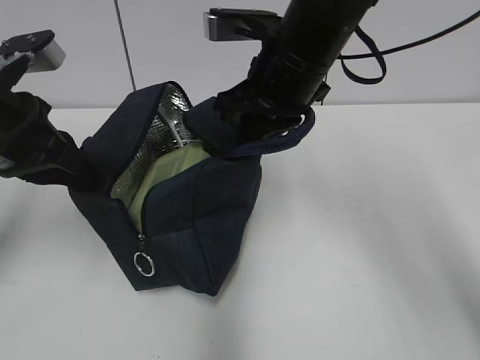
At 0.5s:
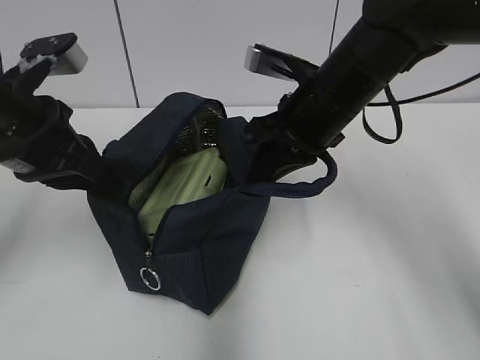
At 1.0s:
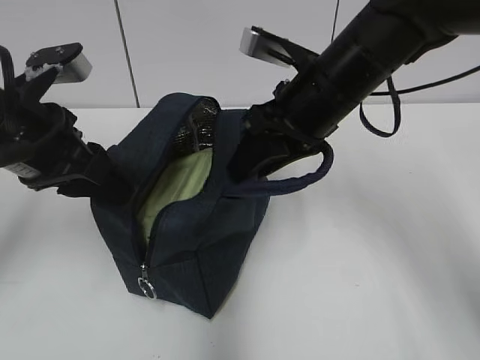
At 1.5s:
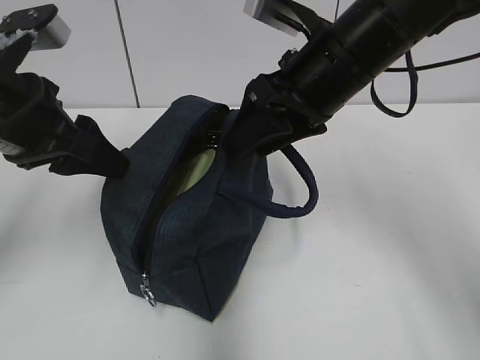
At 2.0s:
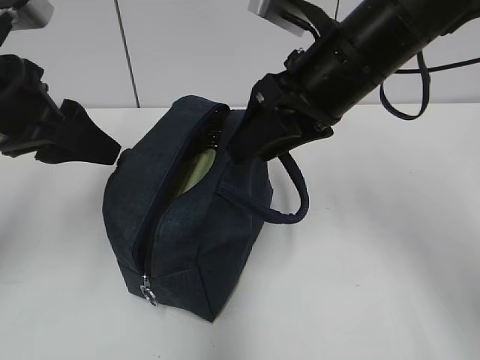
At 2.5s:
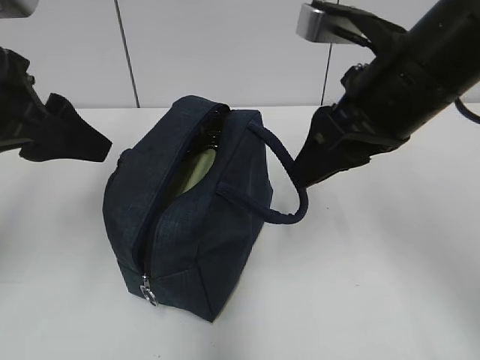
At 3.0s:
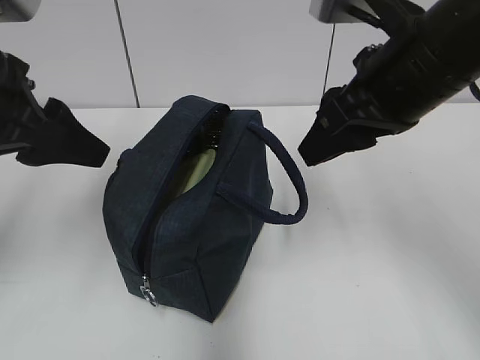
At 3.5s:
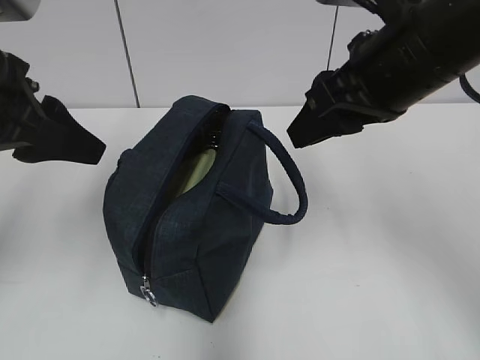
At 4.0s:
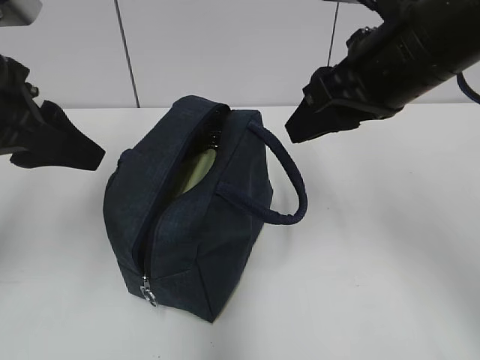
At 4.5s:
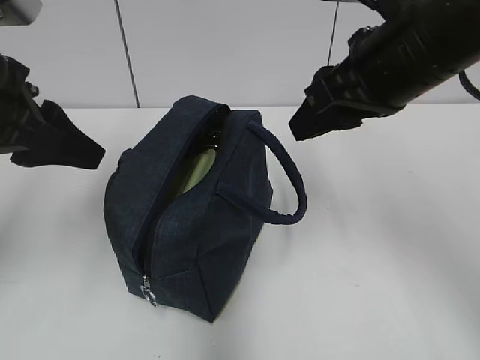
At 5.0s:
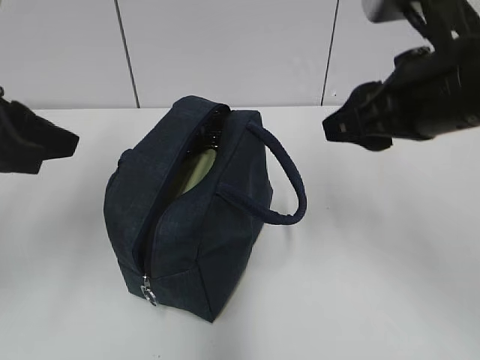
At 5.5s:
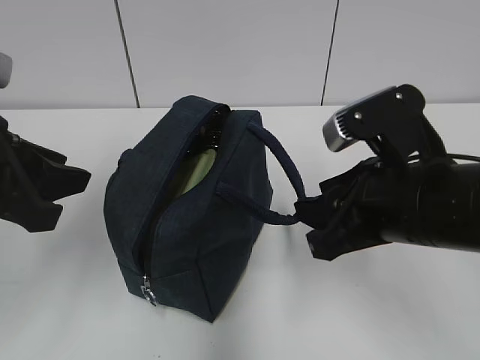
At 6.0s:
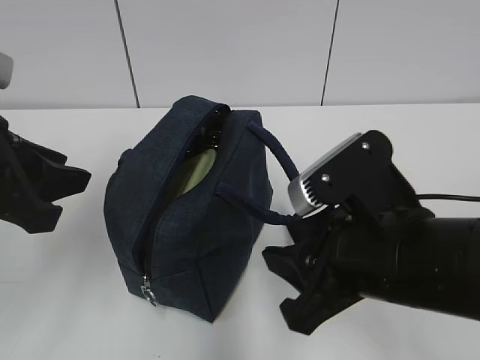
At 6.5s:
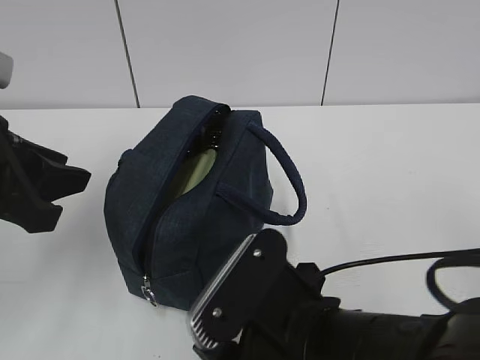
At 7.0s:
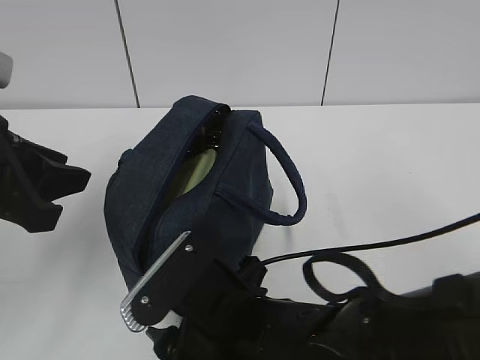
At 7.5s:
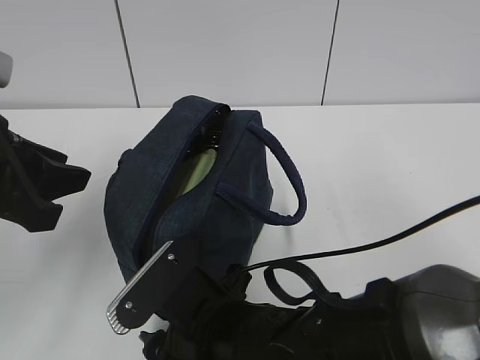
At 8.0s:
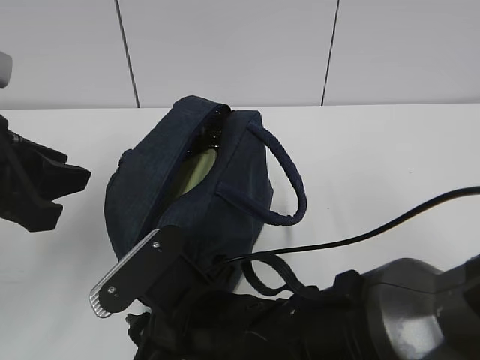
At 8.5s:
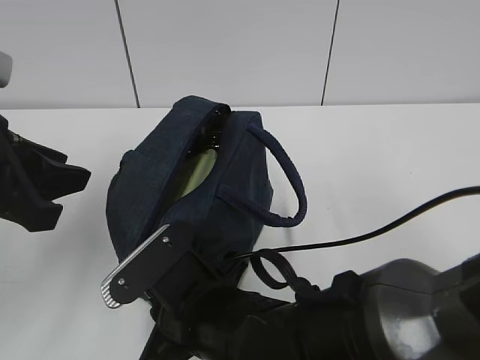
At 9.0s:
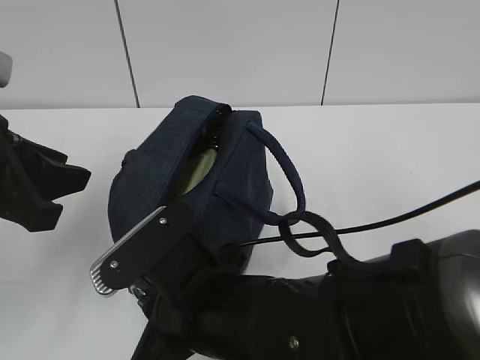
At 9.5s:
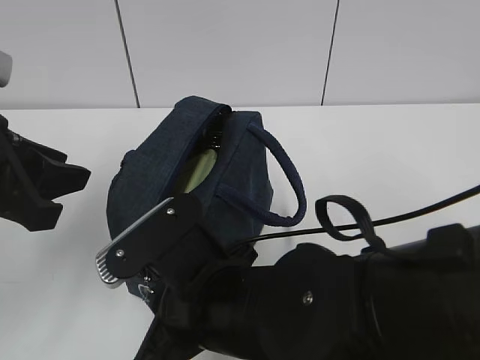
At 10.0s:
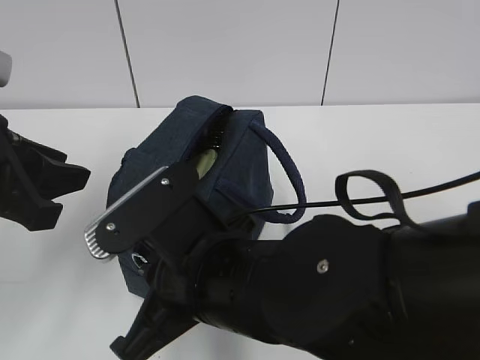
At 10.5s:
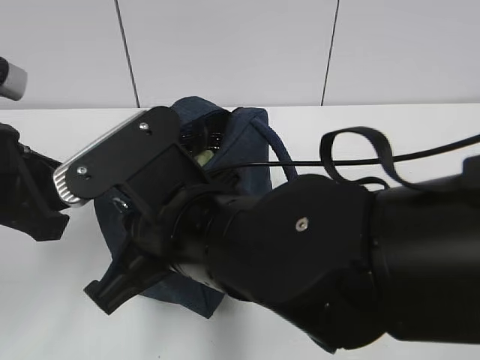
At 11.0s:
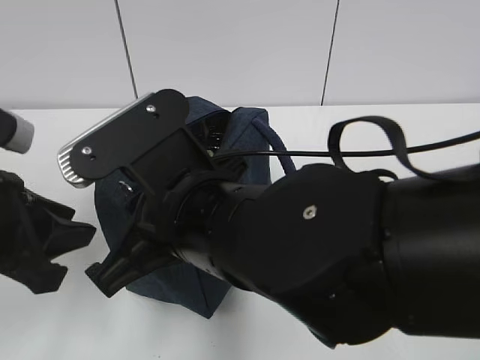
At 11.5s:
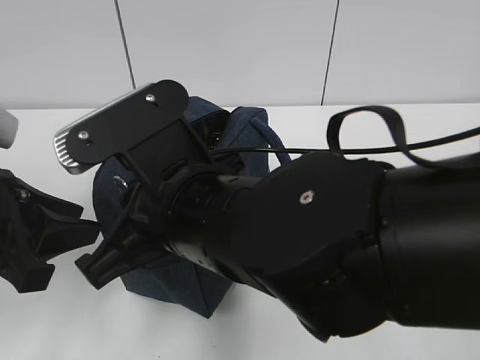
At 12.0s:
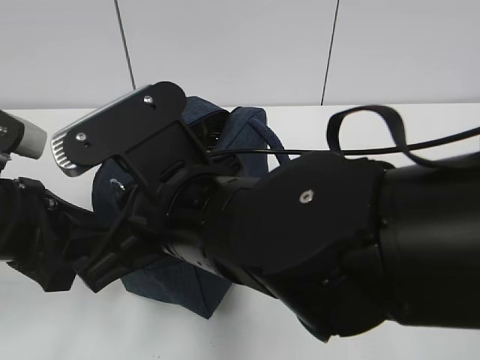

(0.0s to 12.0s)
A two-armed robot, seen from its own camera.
0.0s - 2.0s: The left gripper opens its fingers; the right gripper opens its fingers.
2.0s - 4.0s: The right gripper changes place by approximately 5 cm.
4.0s - 6.0s: The left gripper shifts by roughly 5 cm. Meanwhile the right gripper moves downward and backward, about 15 cm.
6.0s - 8.0s: The right gripper heads to the left and downward, covering approximately 15 cm.
8.0s - 10.0s: The right gripper shifts about 5 cm upward, and closes.
10.0s - 12.0s: The left gripper shifts about 5 cm downward.

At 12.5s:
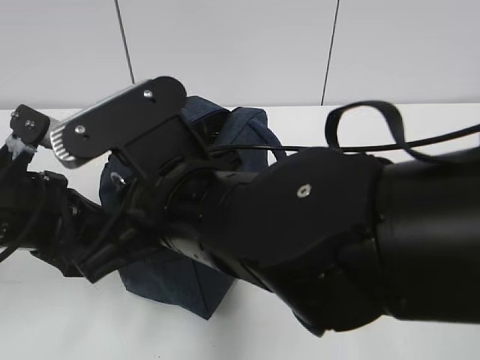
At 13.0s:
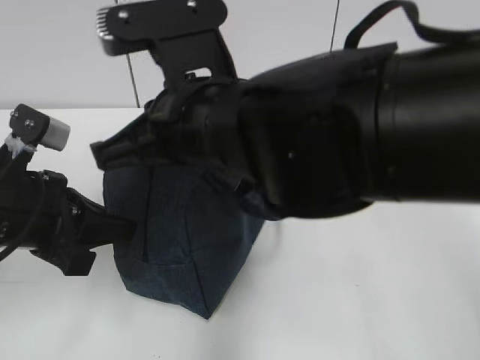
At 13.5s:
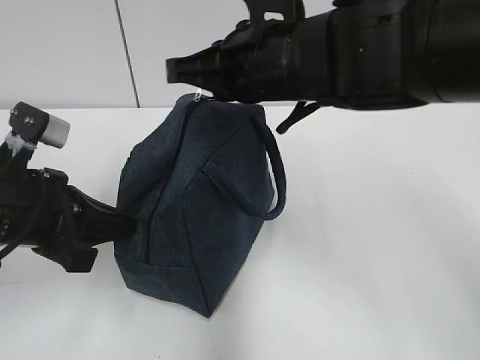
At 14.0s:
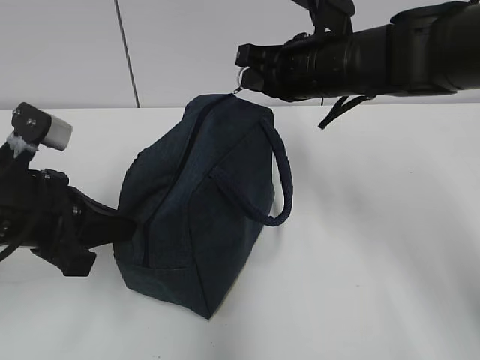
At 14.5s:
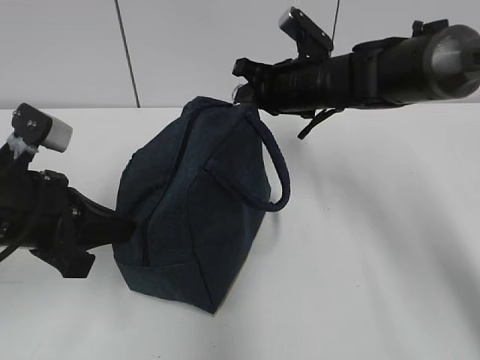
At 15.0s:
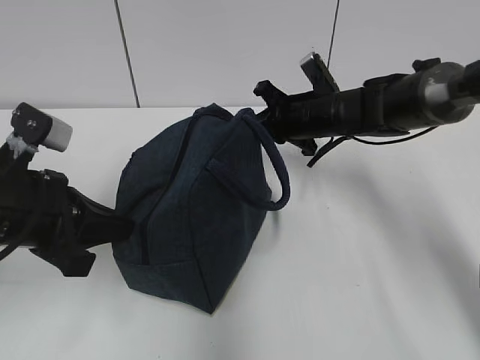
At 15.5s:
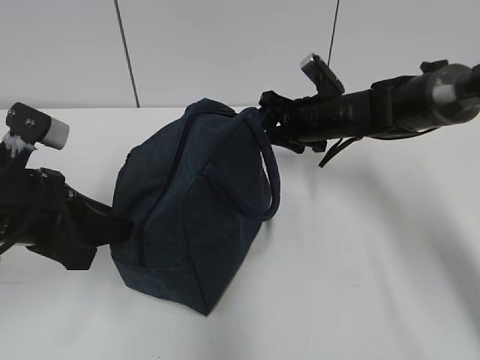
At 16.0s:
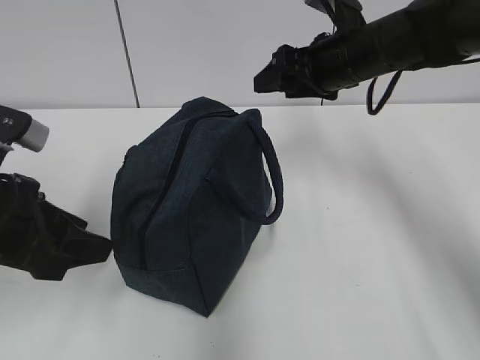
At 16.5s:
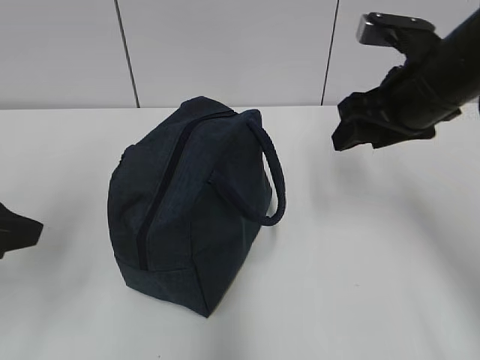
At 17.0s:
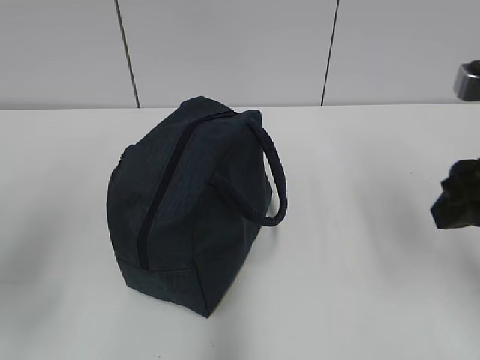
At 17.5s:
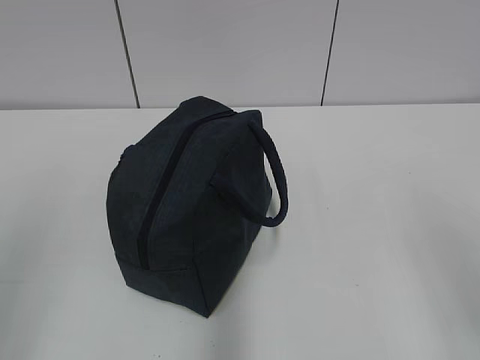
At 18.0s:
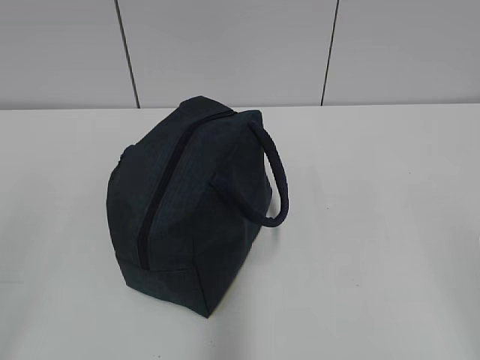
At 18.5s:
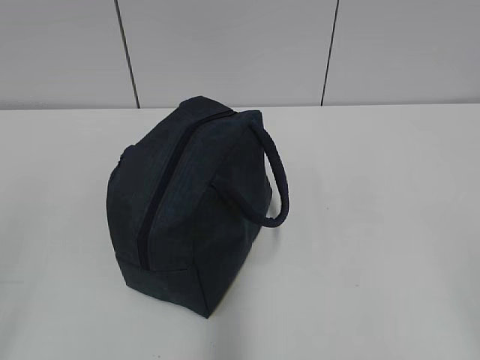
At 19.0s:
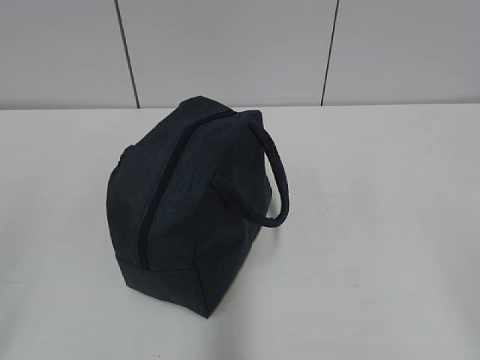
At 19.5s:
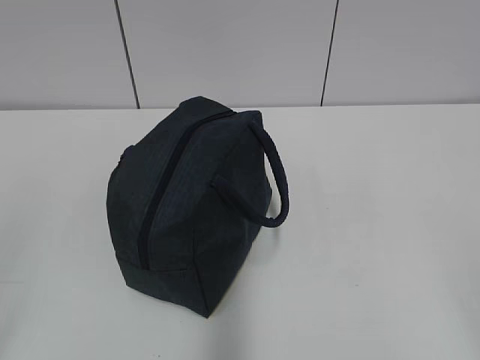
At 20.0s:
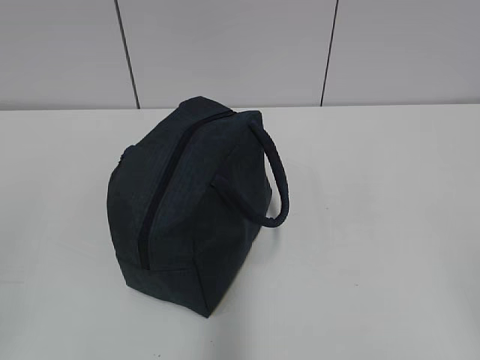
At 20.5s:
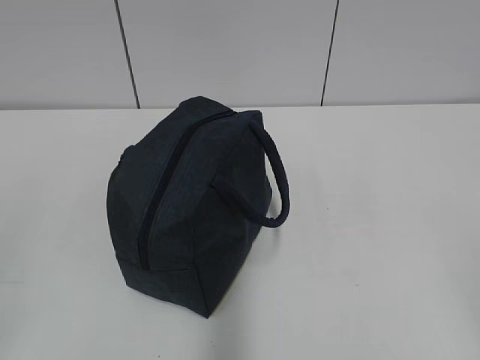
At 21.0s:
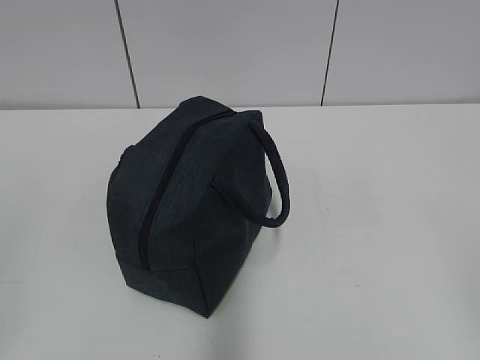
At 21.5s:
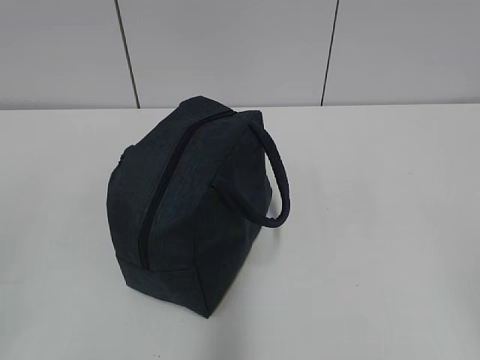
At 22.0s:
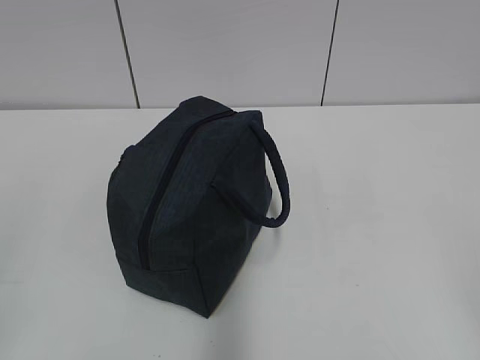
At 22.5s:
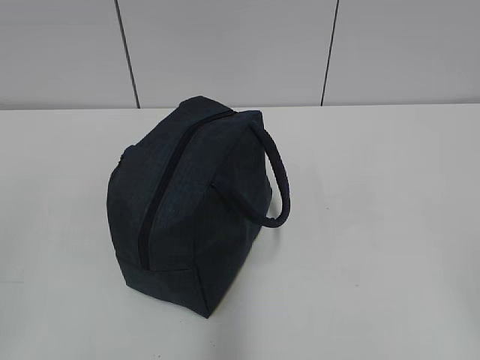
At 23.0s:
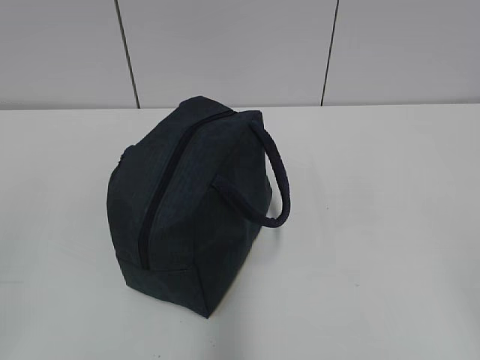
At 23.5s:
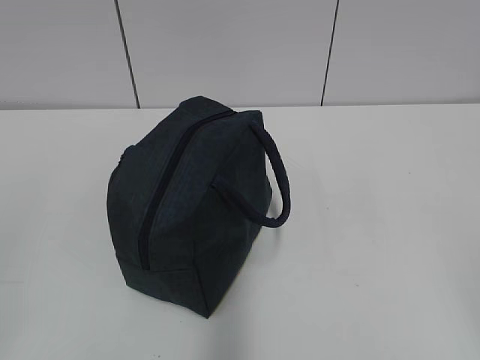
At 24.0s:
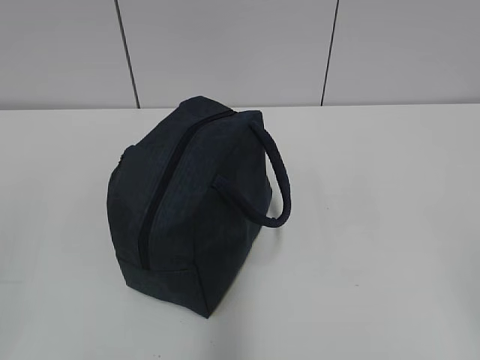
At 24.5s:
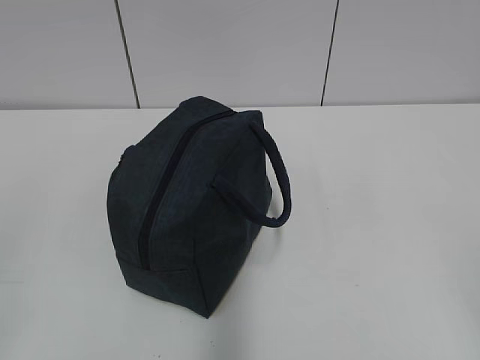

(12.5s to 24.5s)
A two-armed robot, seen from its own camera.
12.5s - 14.5s: The right gripper is displaced forward and to the right by roughly 30 cm.
14.5s - 16.5s: The left gripper goes about 10 cm upward and backward, and opens up; the right gripper heads backward, to the right and upward, covering approximately 15 cm, and opens its fingers.
16.5s - 18.5s: The left gripper shifts approximately 15 cm backward. The right gripper shifts some 35 cm backward.
20.5s - 24.5s: Both grippers stay about where they are.

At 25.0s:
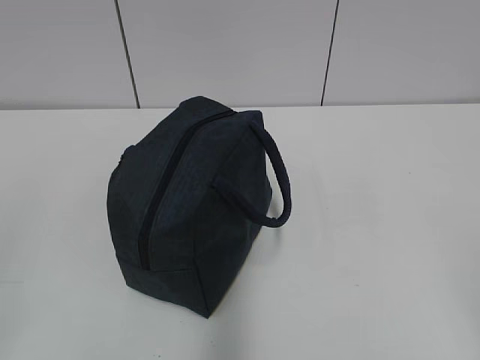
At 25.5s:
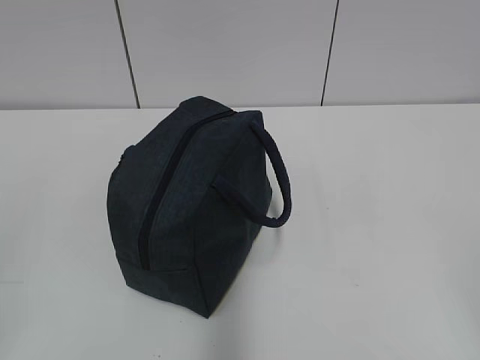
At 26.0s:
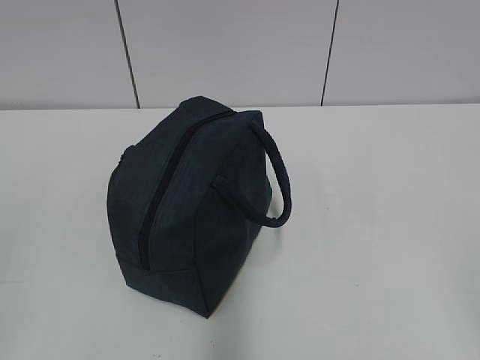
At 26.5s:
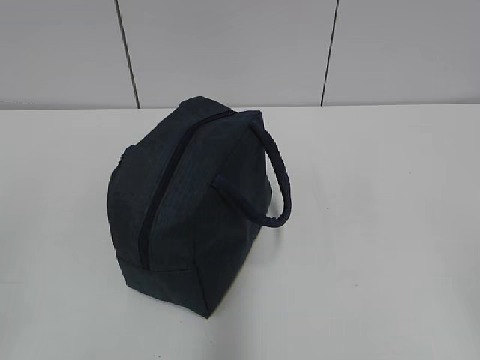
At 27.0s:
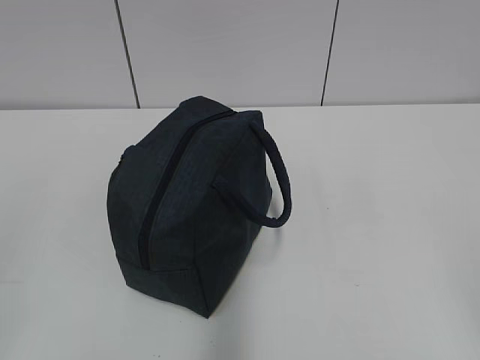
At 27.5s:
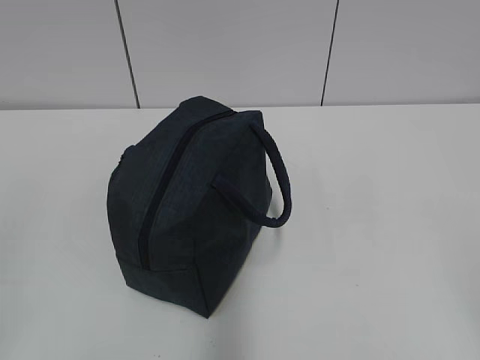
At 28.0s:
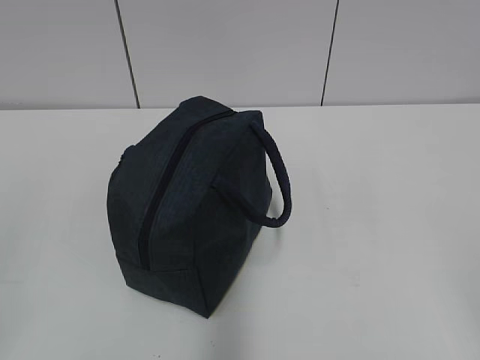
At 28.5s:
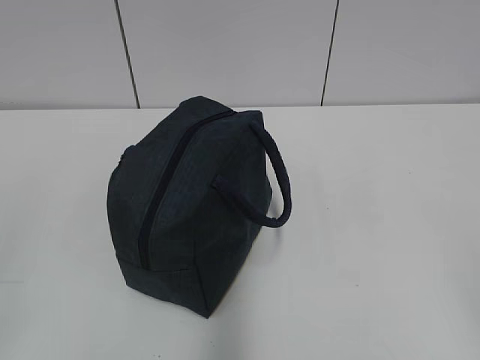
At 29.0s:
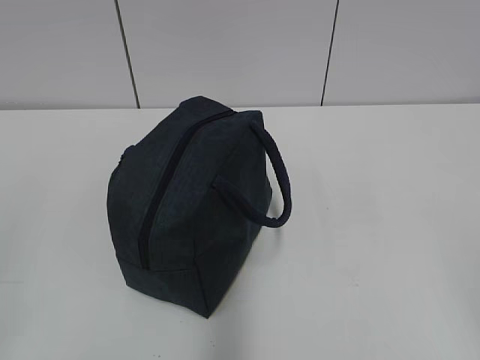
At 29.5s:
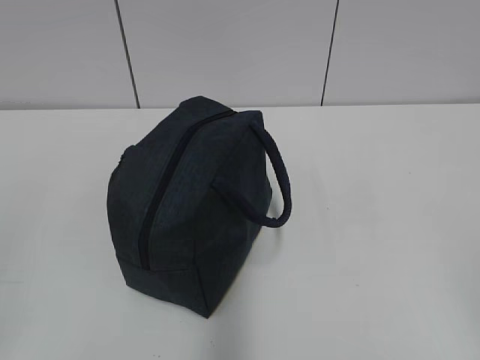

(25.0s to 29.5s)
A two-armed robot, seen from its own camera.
25.0s - 29.5s: Both grippers stay put.
